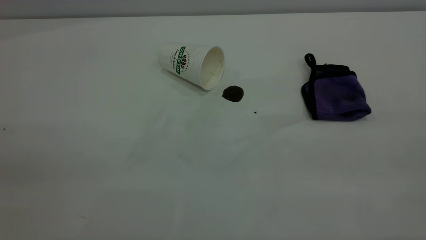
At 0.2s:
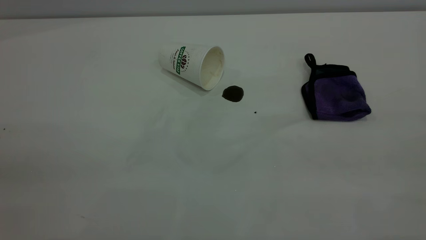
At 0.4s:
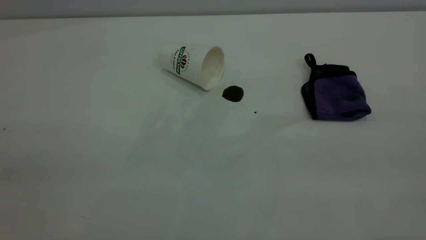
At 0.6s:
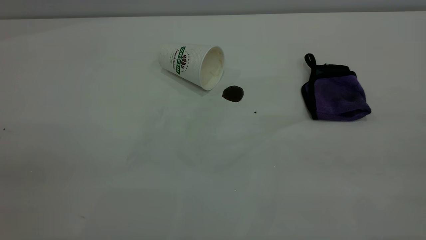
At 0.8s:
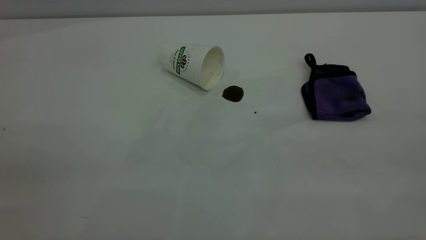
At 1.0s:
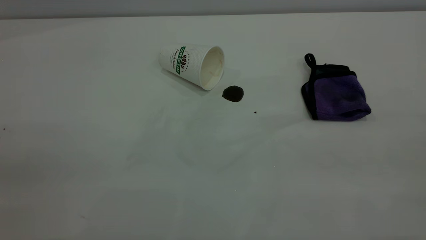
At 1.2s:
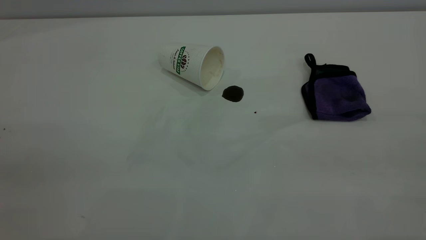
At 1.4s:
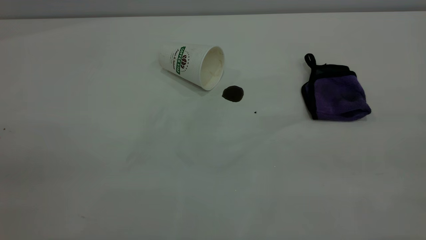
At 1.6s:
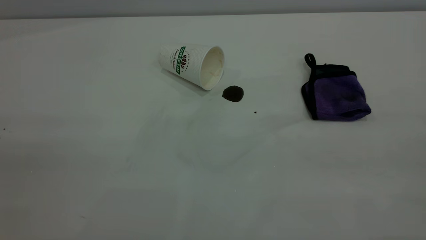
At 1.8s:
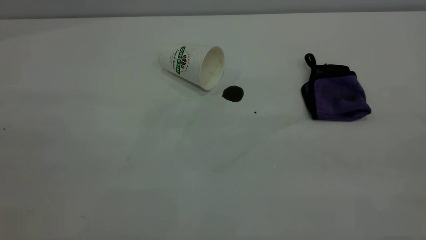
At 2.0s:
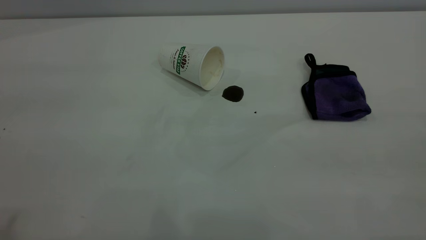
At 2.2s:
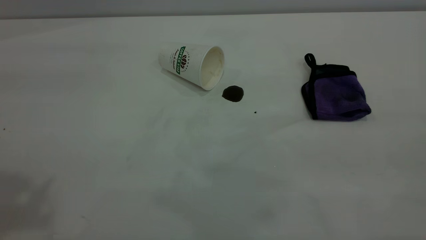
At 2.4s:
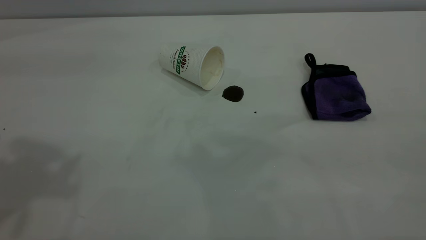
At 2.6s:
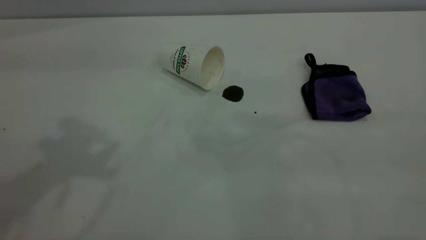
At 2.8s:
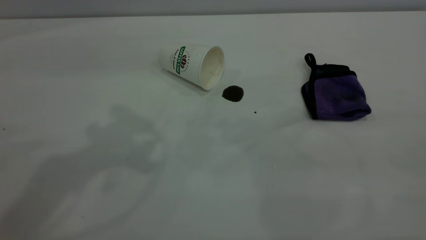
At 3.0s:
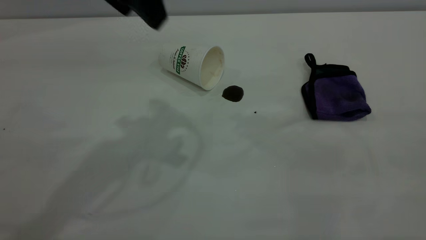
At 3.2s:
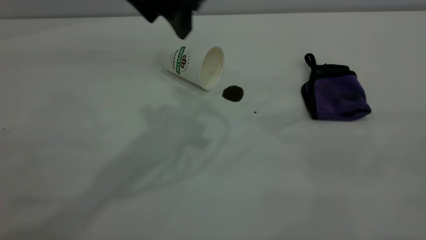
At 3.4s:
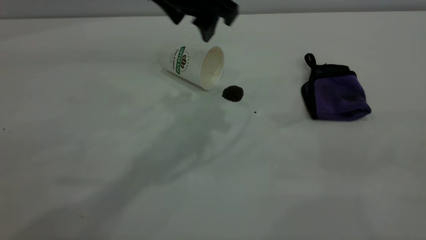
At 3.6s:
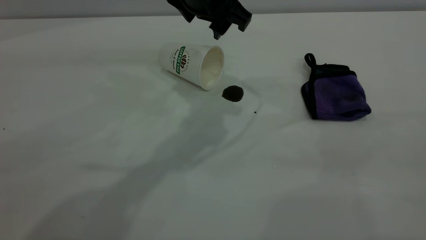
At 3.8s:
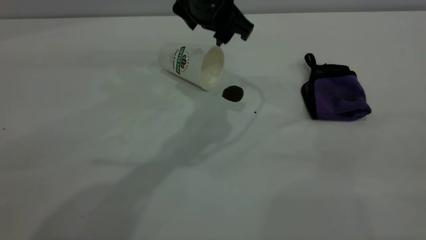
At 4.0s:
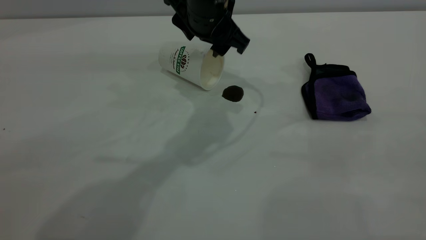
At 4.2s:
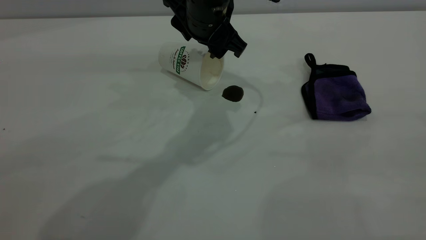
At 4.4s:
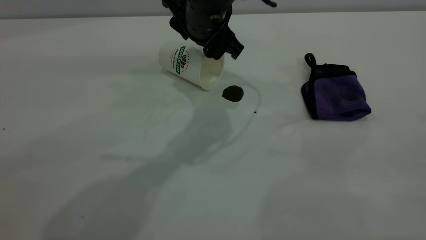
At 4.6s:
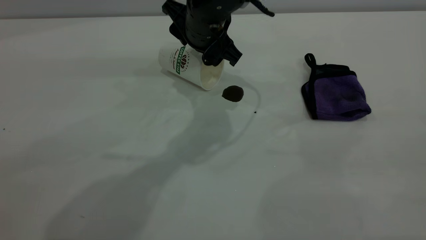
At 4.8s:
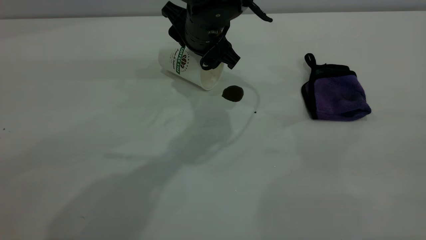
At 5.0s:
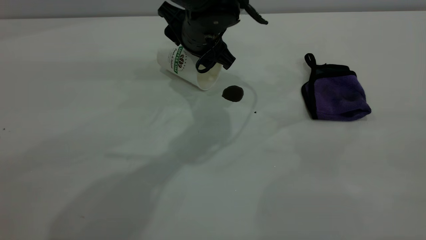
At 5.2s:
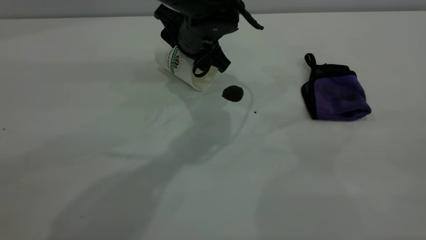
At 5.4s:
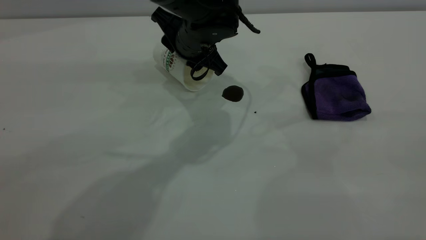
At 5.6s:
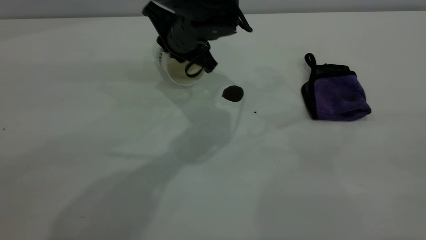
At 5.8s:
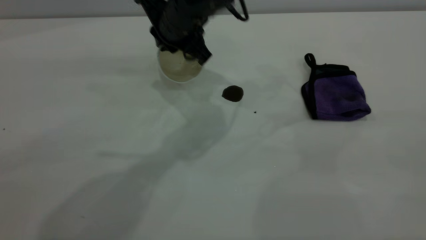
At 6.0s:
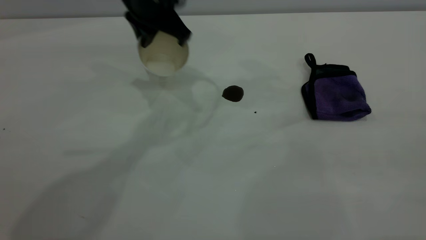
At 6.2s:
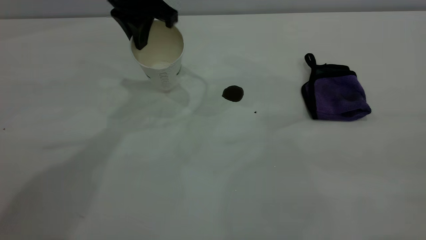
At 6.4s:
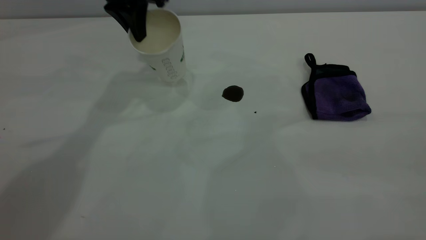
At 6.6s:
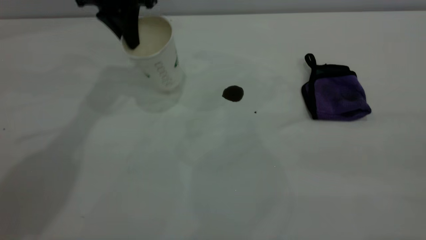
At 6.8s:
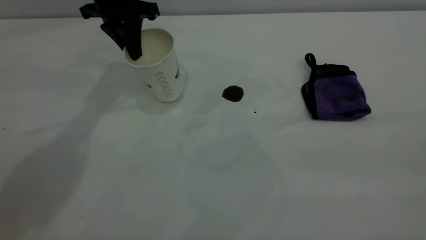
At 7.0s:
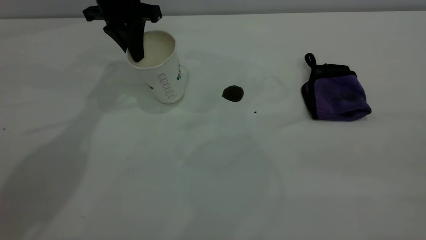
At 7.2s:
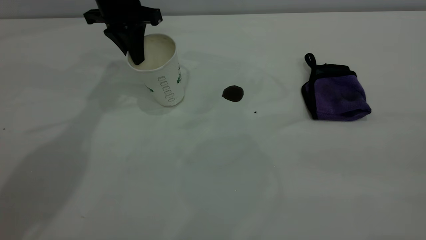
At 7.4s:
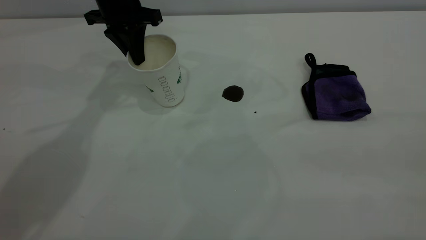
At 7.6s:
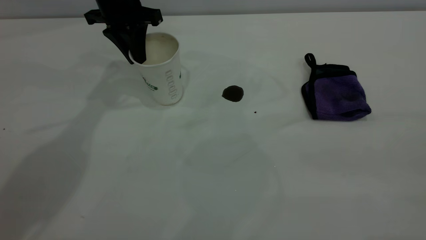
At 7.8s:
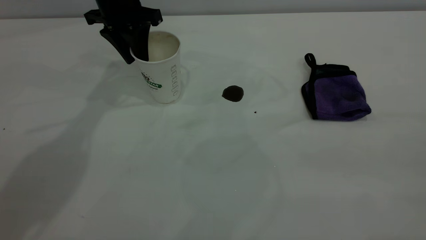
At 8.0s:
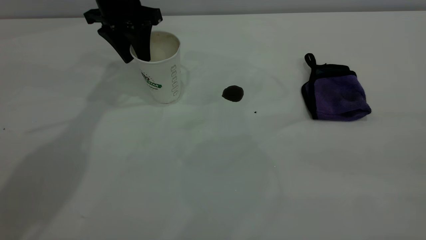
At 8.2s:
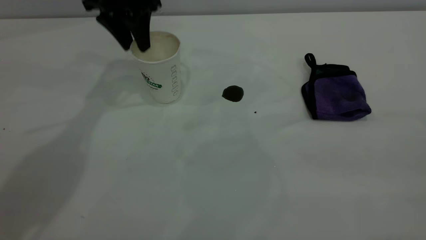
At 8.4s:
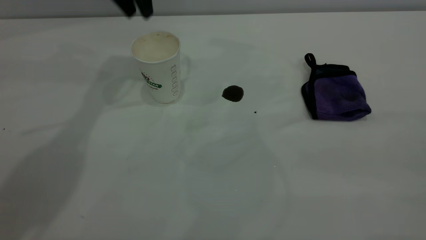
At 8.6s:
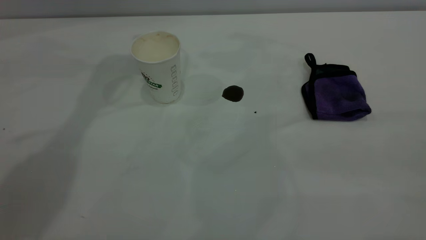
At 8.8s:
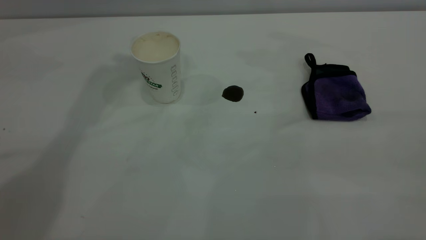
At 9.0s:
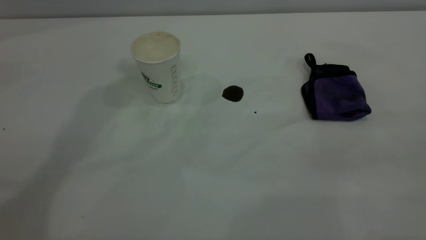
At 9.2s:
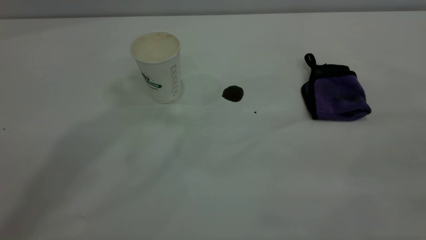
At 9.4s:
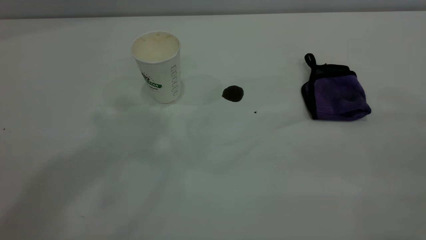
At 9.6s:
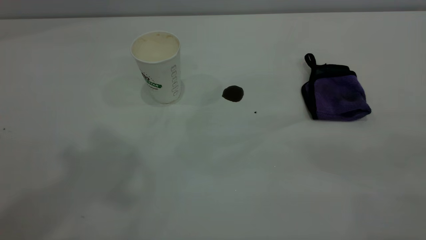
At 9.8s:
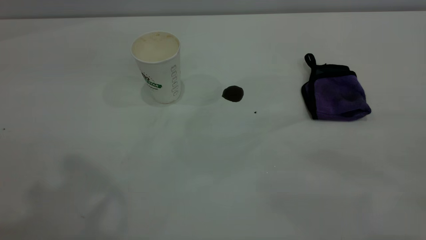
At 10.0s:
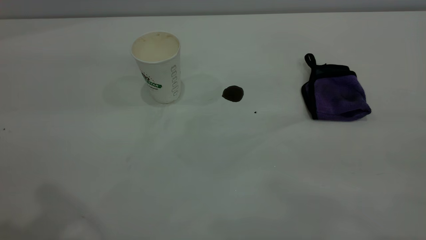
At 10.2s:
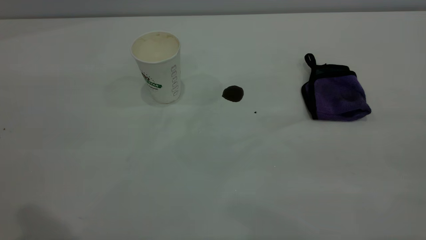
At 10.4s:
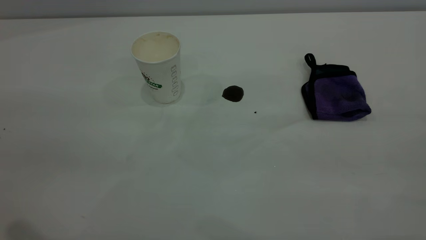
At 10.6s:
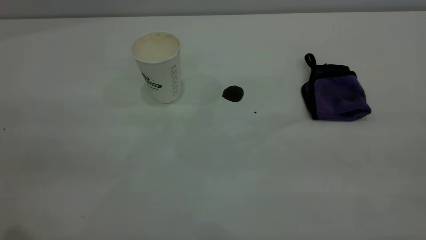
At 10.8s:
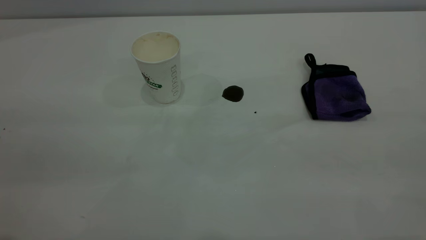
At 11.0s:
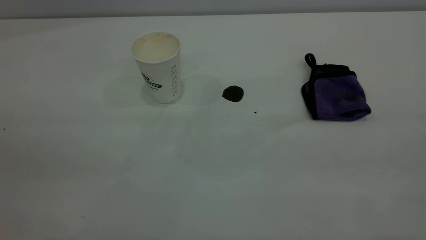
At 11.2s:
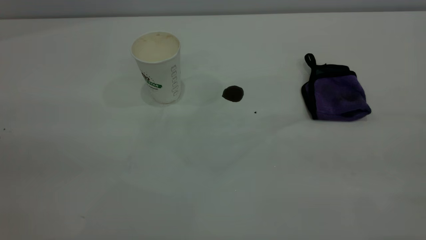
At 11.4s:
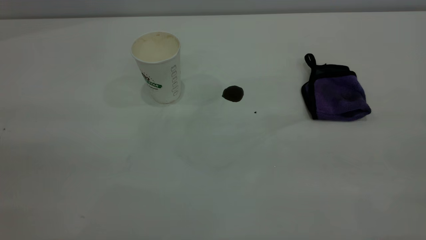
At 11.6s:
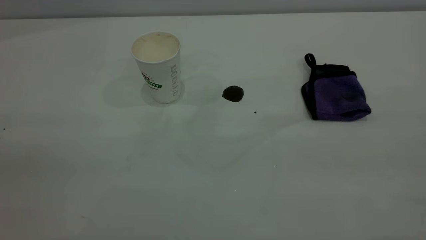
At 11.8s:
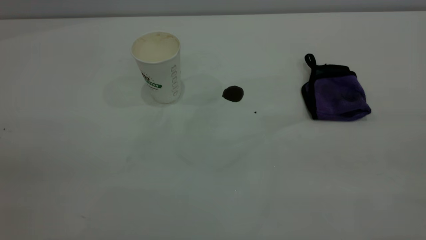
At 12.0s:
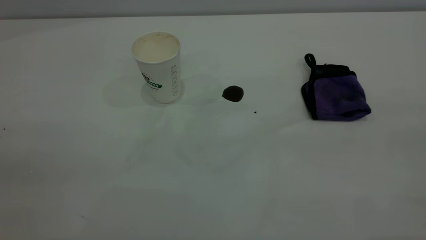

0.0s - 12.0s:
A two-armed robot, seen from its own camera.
Task of the whole recording: the left gripper pick up the fallen cup and place it upright, the right gripper grasp the purple rag and wipe the coffee stain on the table, the right gripper put the purple rag back in its original position.
Step, 0.0s - 8.2s: Stand the paper cup upright.
1.6s - 3.0s: The left gripper moves forward and to the right, some 35 cm.
3.0s - 4.4s: The left gripper is displaced downward, to the right and forward by approximately 20 cm.
4.4s - 6.0s: The left gripper goes about 10 cm to the left, and closes up.
6.0s - 7.6s: The left gripper shifts approximately 10 cm to the left and forward.
7.6s - 9.0s: The left gripper is displaced upward by roughly 35 cm, and opens up.

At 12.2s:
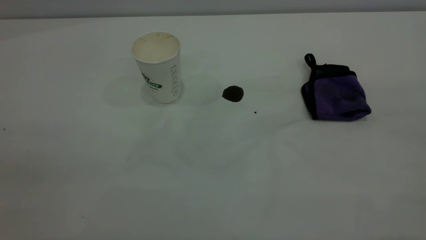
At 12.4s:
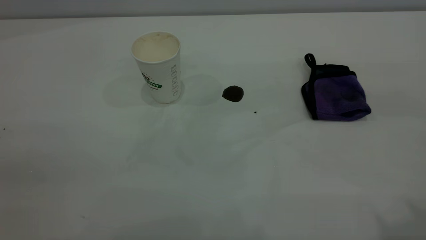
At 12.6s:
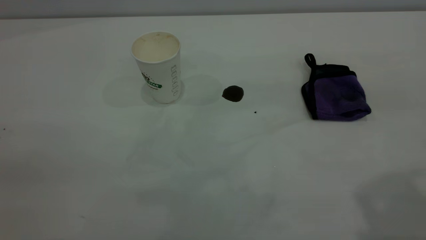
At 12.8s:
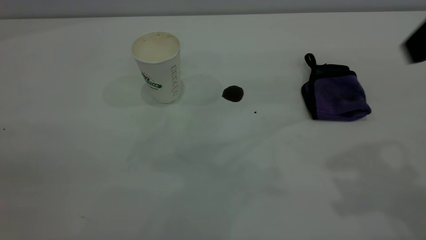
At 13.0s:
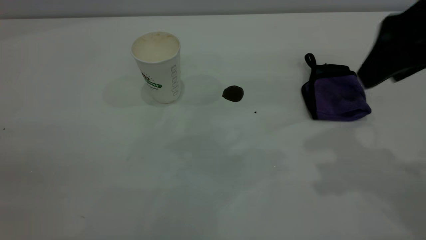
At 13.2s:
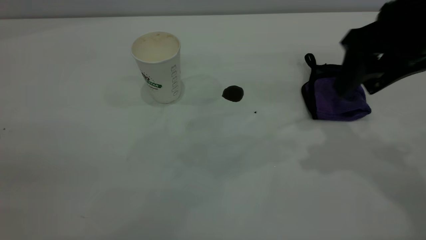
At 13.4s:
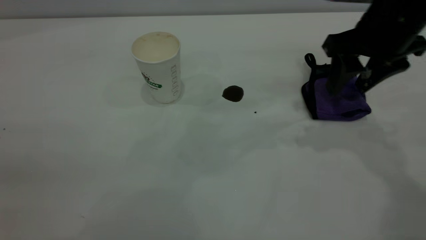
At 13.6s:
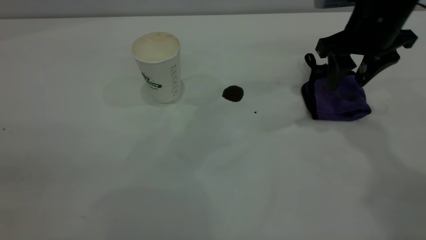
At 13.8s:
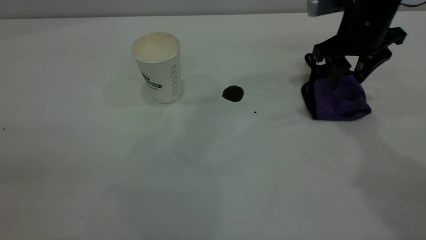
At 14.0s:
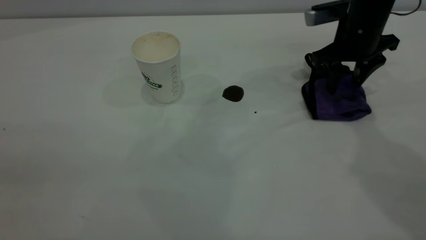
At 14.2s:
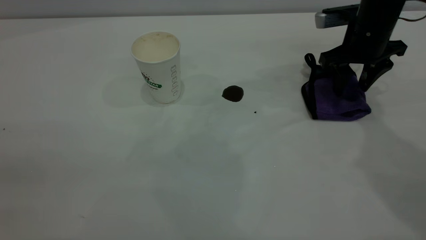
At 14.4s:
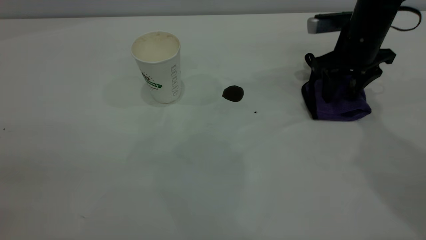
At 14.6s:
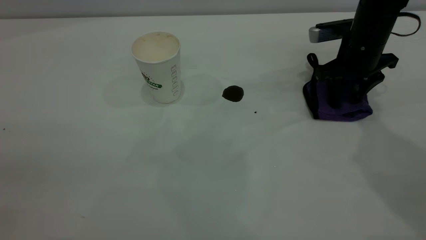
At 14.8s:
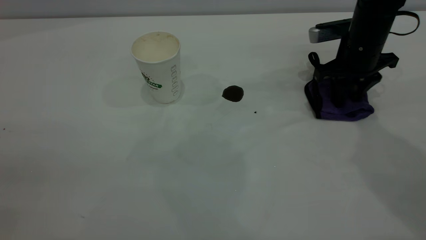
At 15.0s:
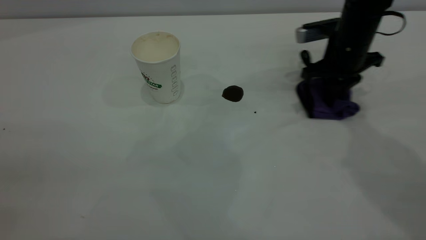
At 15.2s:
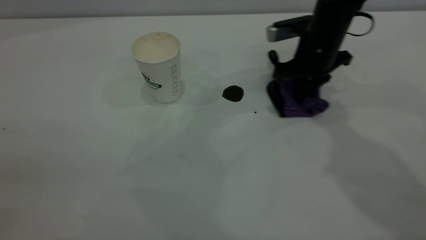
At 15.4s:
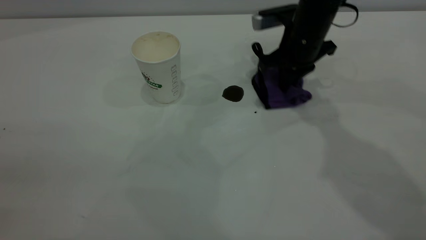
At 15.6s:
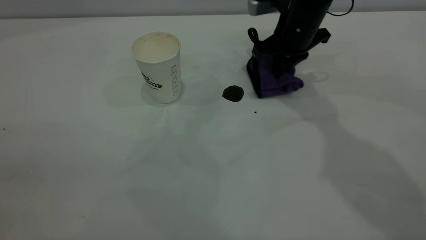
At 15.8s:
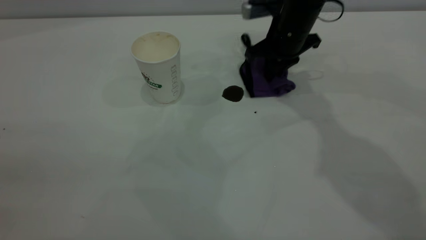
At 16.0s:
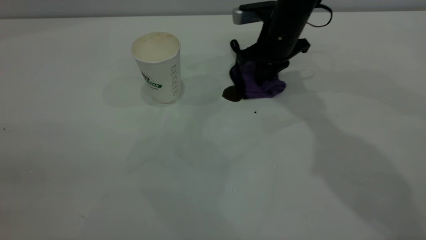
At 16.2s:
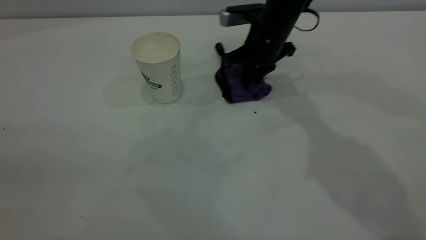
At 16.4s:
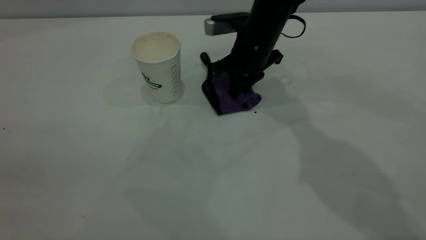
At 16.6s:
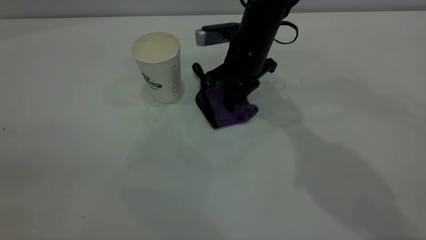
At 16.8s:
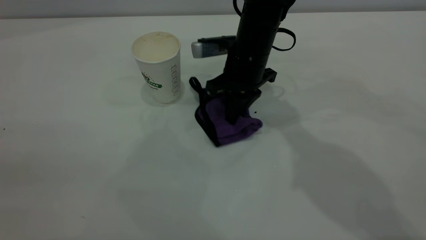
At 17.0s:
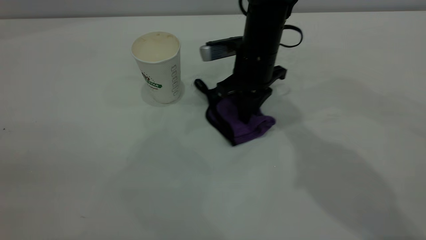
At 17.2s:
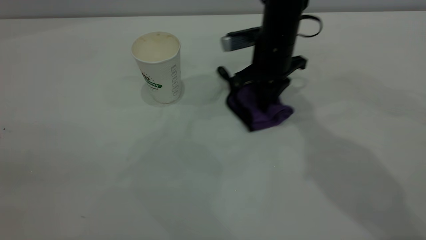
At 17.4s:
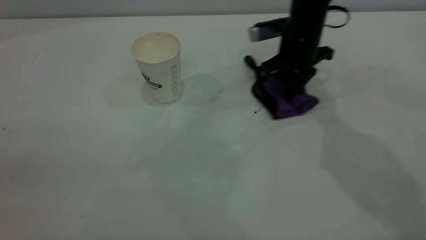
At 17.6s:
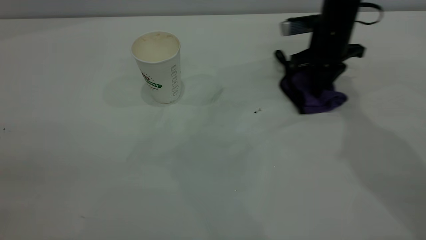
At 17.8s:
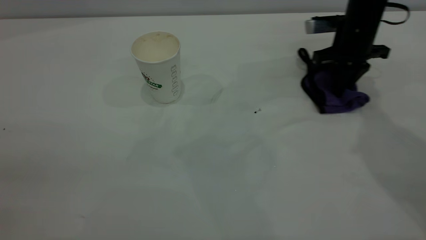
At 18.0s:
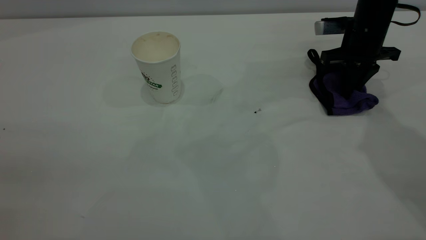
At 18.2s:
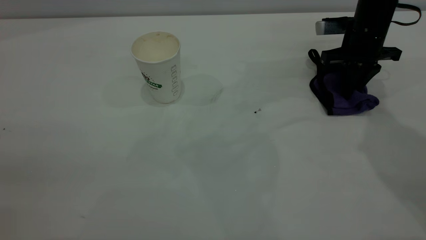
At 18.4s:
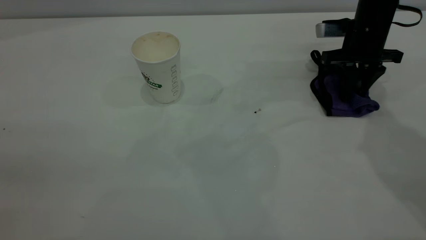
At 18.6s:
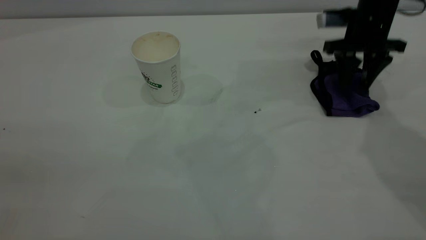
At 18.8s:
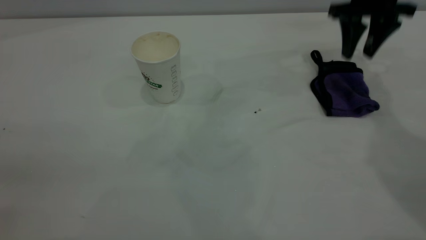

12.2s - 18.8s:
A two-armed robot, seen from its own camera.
Task of the whole recording: the left gripper pick up the fallen cup and place it upright, the right gripper grasp the purple rag and wipe the coffee stain on the table, the right gripper put the purple rag back in its original position.
Step, 12.2s - 18.8s: Wipe the stains off the table with a rag.
12.2s - 13.8s: The right gripper moves forward and downward, approximately 40 cm.
13.8s - 15.4s: The right gripper goes some 5 cm to the left, and closes its fingers.
17.2s - 18.8s: The right gripper goes approximately 20 cm to the right and upward, and opens up.
